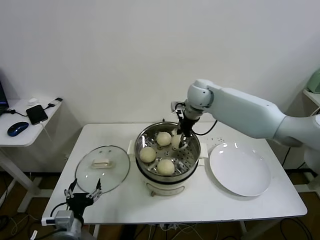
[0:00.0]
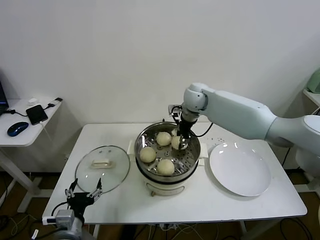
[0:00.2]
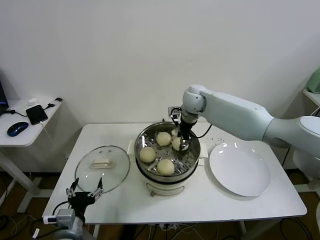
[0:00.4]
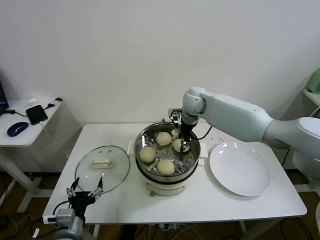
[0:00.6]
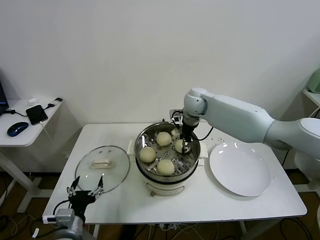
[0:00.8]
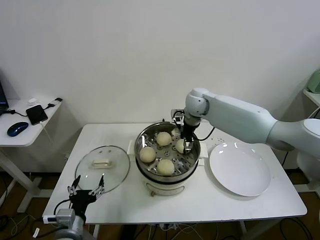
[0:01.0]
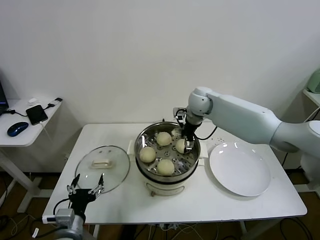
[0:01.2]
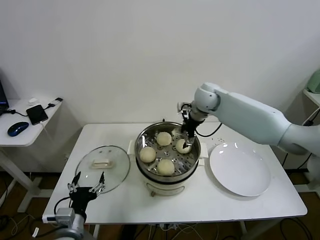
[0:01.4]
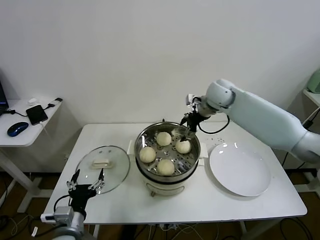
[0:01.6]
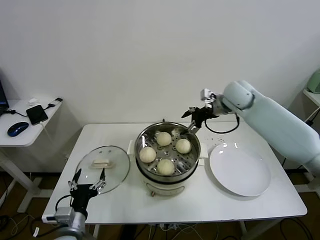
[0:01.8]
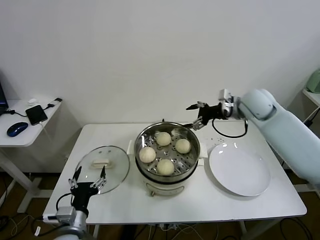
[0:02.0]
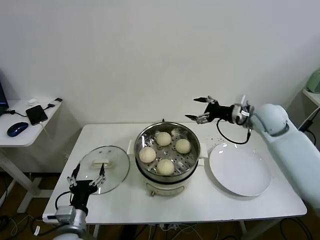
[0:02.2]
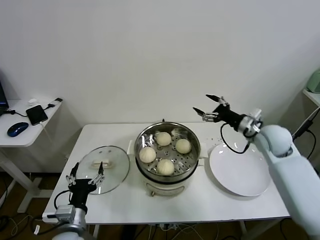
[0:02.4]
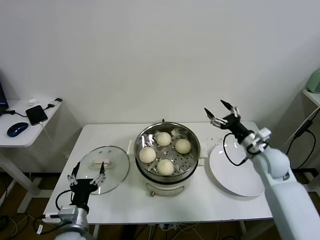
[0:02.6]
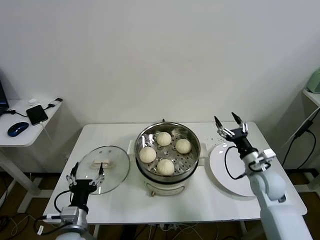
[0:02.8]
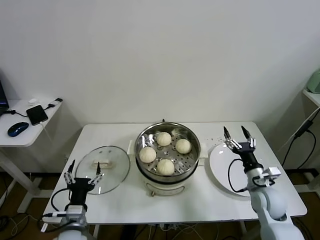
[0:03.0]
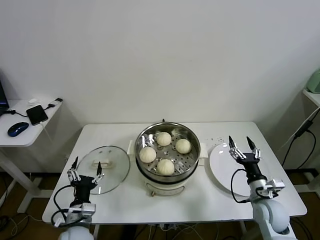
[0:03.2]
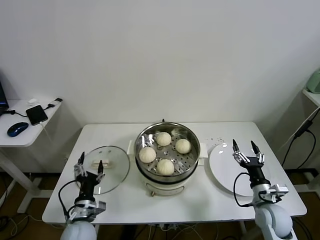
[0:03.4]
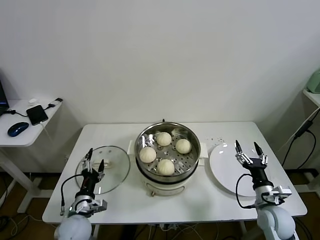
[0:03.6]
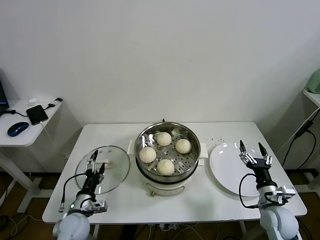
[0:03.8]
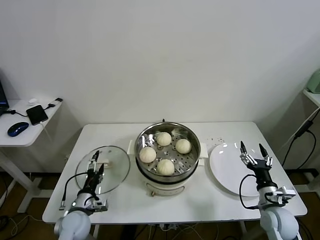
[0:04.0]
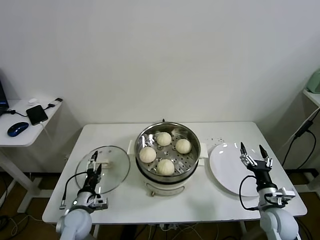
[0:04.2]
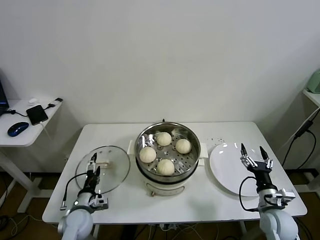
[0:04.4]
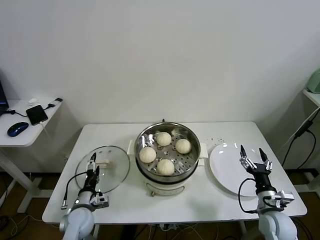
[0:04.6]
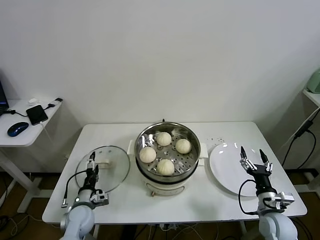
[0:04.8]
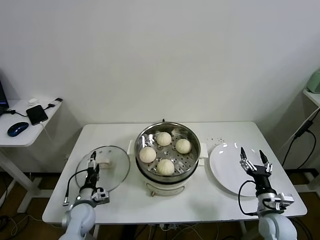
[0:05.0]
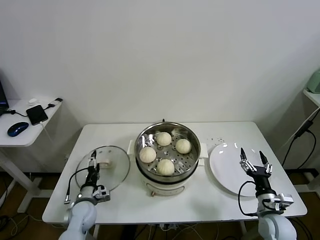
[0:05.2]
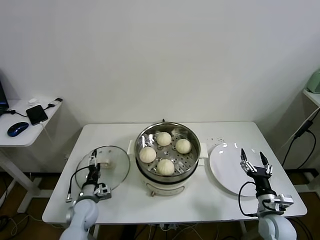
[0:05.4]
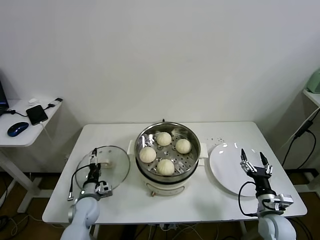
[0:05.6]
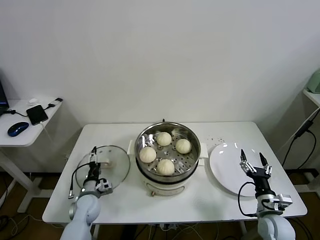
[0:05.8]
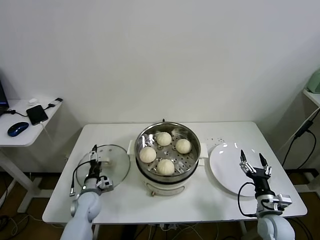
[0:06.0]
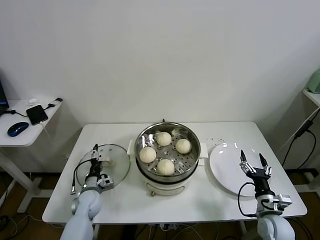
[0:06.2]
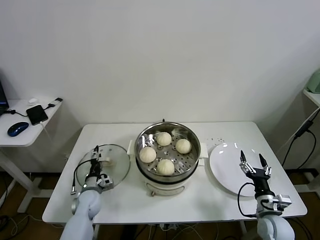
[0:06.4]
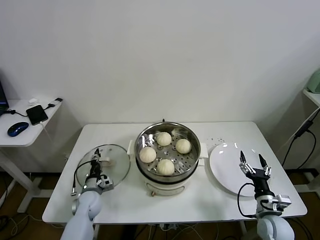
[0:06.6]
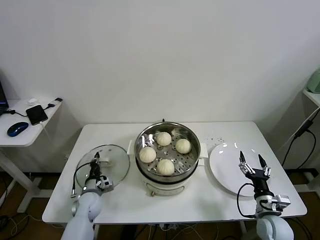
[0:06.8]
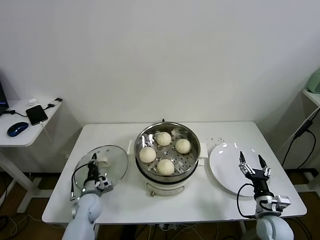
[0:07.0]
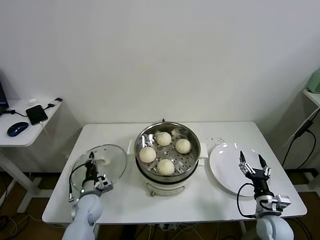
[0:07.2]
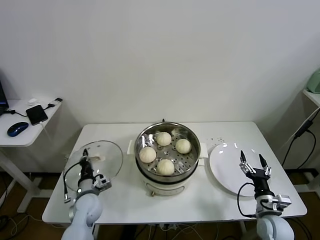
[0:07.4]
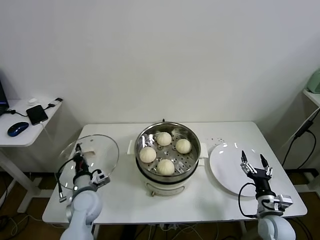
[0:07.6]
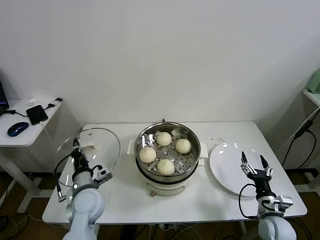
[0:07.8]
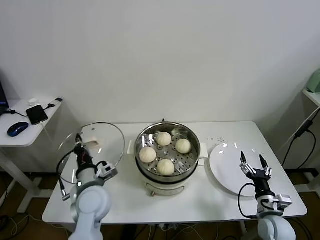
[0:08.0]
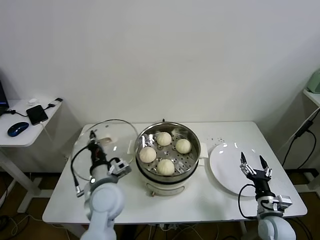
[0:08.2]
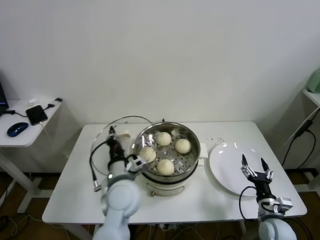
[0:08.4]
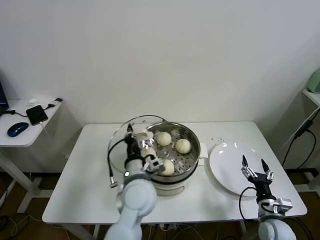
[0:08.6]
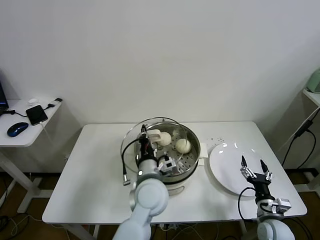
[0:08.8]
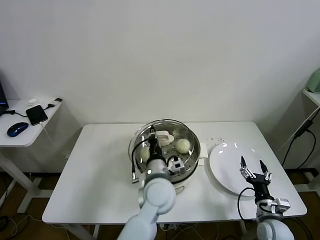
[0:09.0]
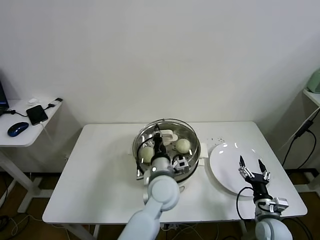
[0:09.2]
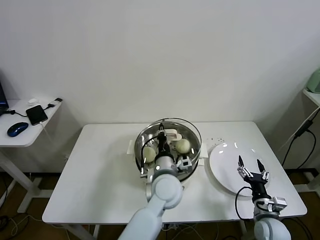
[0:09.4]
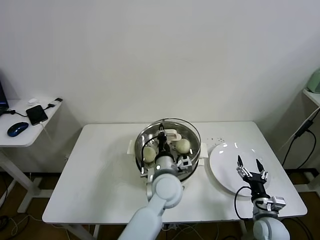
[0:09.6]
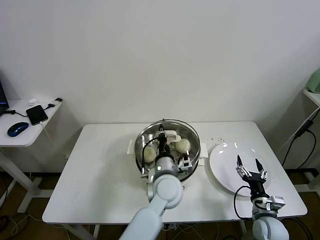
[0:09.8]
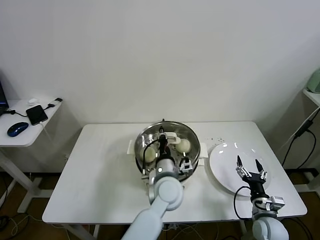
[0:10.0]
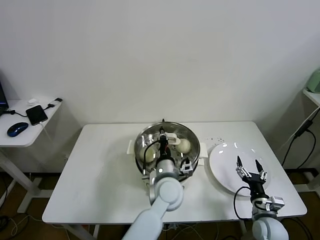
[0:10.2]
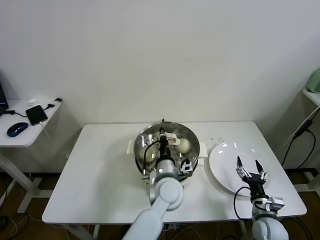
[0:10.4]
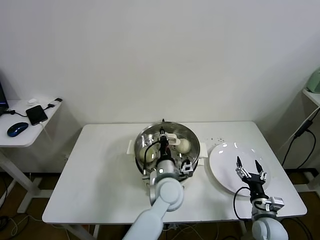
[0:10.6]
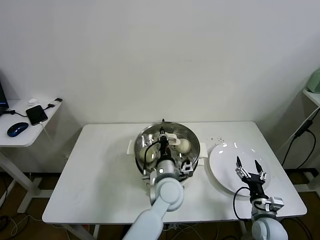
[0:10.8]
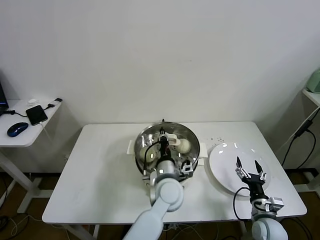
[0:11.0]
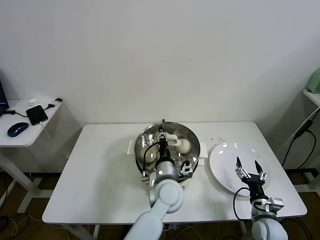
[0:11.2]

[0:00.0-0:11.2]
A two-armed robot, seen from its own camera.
Task of the whole recording: take steamed baozi put them in steamer.
Step, 0:01.4 to 0:07.0: Grasp the pot lid with left gripper.
0:00.0 to 0:01.6: The right gripper goes about 5 cm to the right, and opens.
0:01.6 to 0:03.2: The right gripper heads backward, downward and to the right, covering some 40 cm. The left gripper changes place by roughly 5 cm.
0:03.2 to 0:04.8: The left gripper travels forward and downward by roughly 10 cm.
0:04.8 to 0:06.4: The left gripper is displaced forward by approximately 5 cm.
0:06.4 to 0:08.0: The left gripper is displaced upward and to the right by approximately 20 cm, and closes its fingers.
0:08.0 to 0:09.6: The left gripper is displaced to the right by about 20 cm.
0:09.6 to 0:11.2: The grippers move only a little.

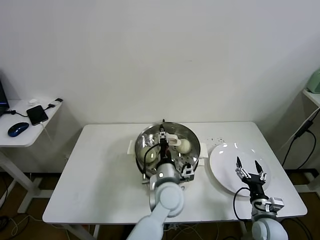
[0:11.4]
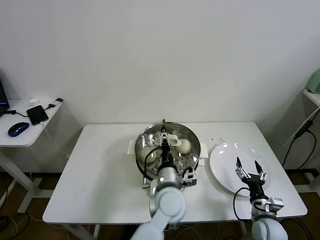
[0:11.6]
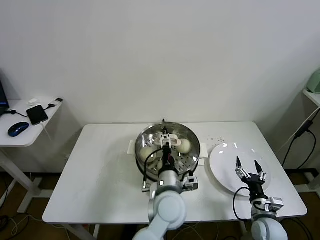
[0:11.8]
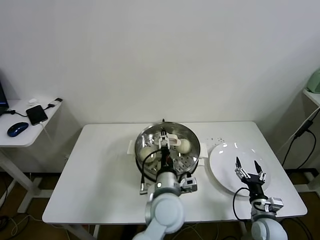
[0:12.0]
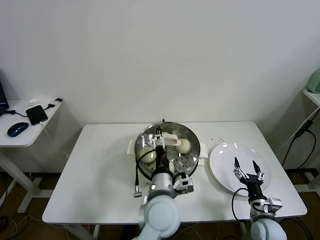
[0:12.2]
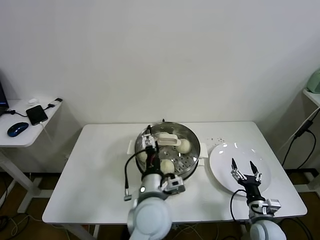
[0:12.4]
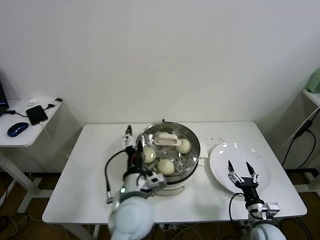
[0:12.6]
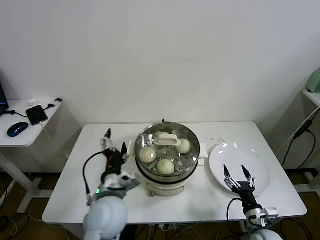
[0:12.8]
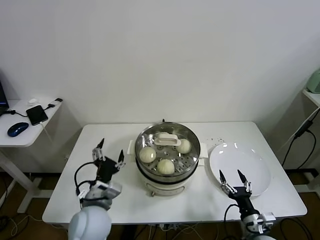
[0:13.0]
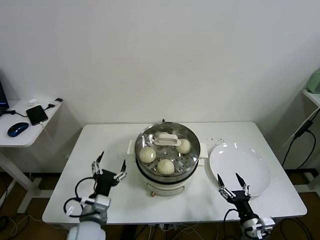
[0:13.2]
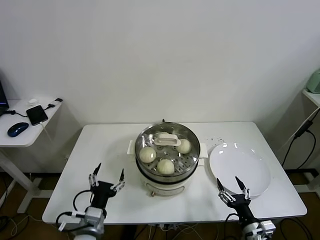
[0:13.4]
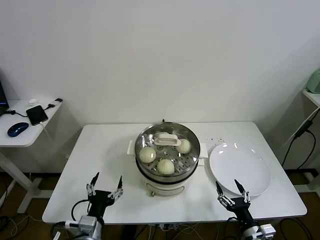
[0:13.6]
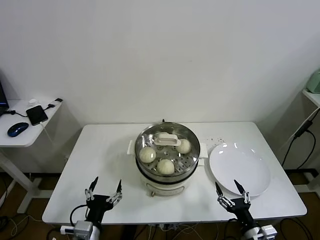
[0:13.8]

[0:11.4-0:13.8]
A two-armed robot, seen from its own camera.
Task of the whole recording: take steamed baozi put them in steamer.
0:11.4 to 0:12.6: The left gripper is displaced to the left, backward and upward by roughly 10 cm, and opens up.
0:12.6 to 0:13.8: The right gripper goes some 10 cm backward, while the left gripper is displaced to the left, downward and backward by about 20 cm.

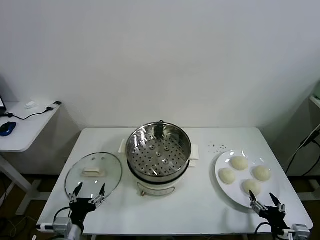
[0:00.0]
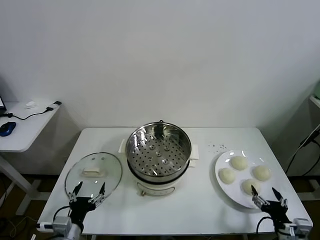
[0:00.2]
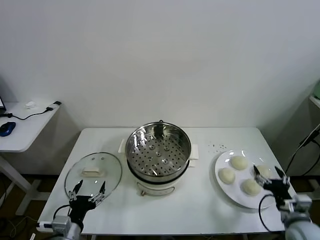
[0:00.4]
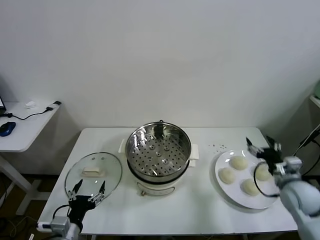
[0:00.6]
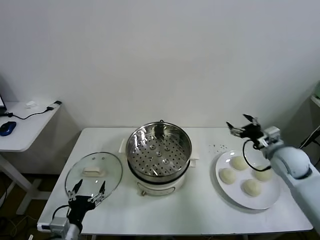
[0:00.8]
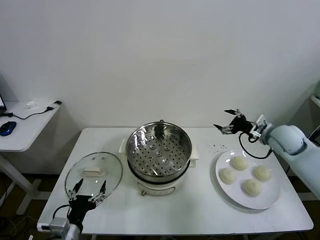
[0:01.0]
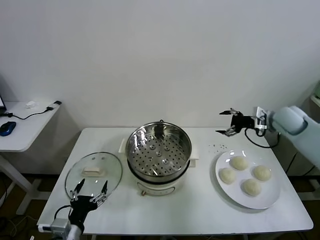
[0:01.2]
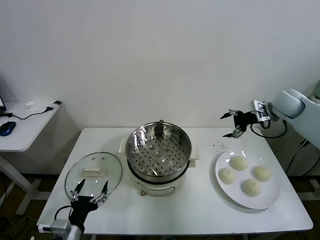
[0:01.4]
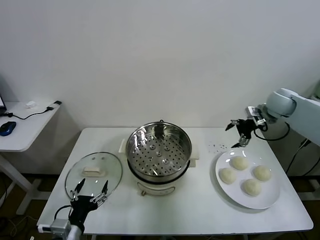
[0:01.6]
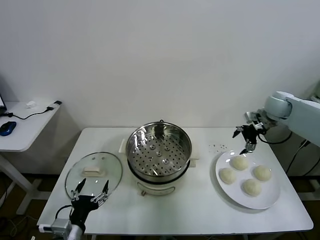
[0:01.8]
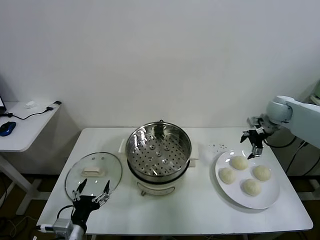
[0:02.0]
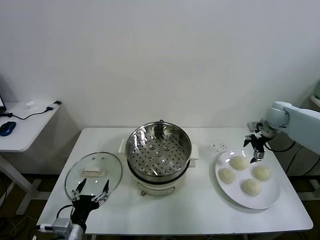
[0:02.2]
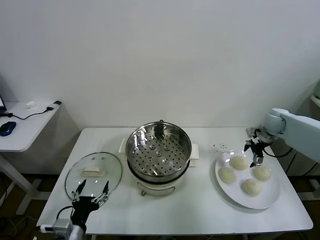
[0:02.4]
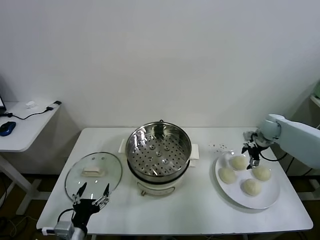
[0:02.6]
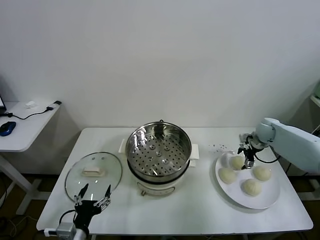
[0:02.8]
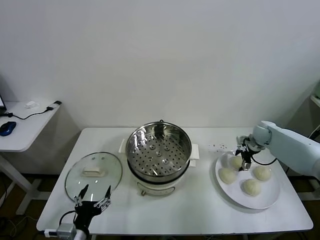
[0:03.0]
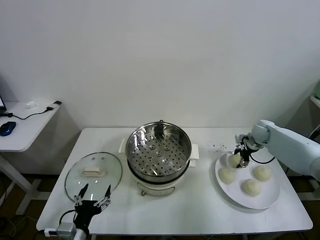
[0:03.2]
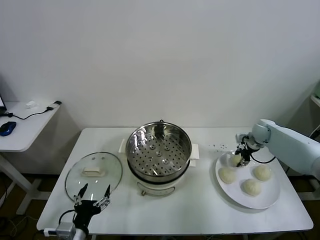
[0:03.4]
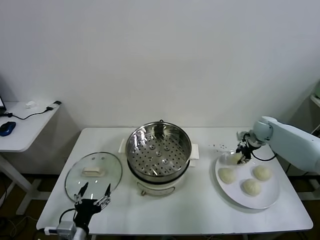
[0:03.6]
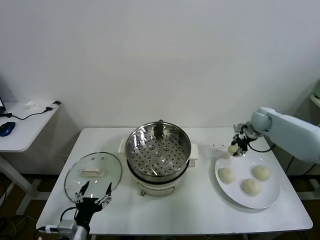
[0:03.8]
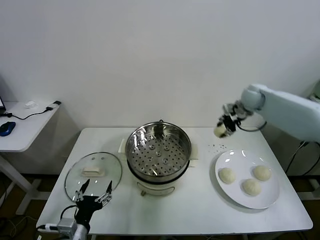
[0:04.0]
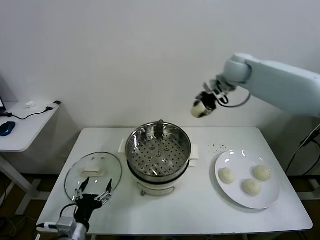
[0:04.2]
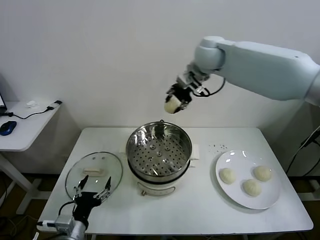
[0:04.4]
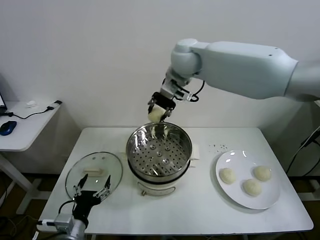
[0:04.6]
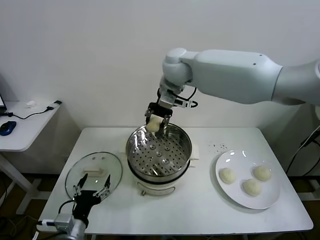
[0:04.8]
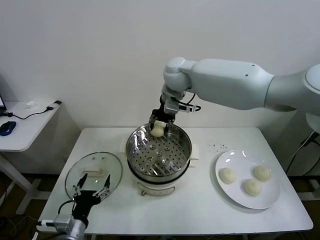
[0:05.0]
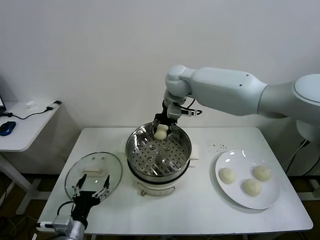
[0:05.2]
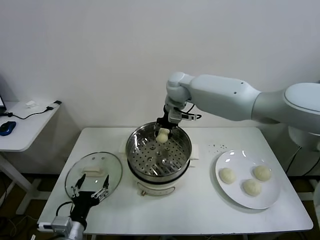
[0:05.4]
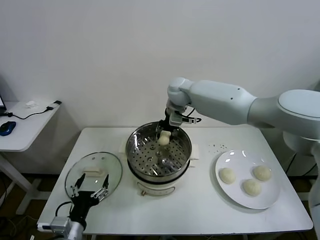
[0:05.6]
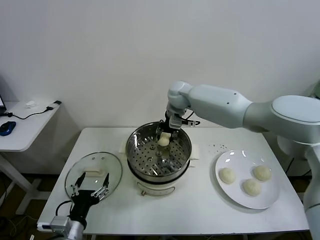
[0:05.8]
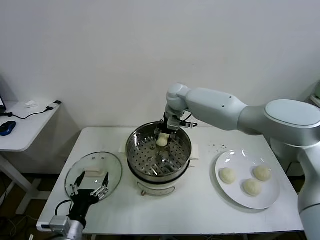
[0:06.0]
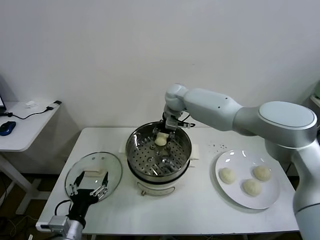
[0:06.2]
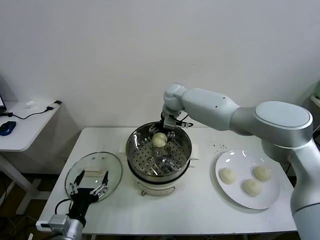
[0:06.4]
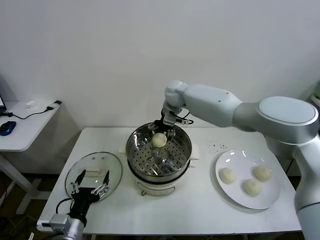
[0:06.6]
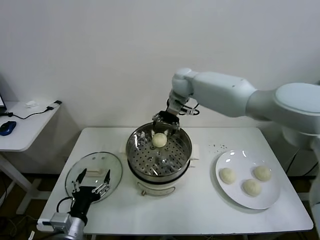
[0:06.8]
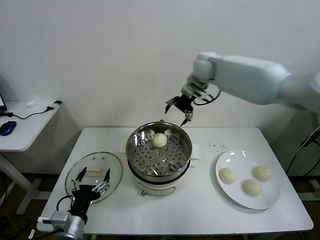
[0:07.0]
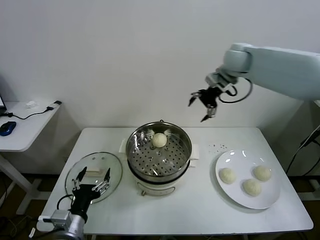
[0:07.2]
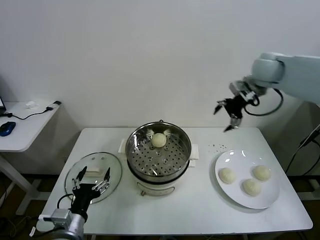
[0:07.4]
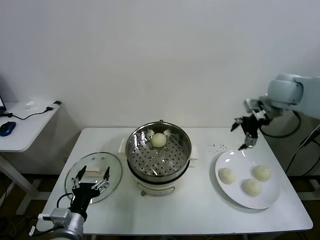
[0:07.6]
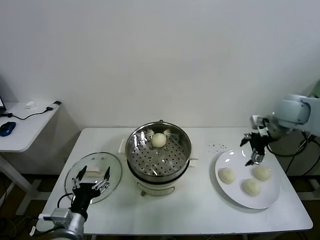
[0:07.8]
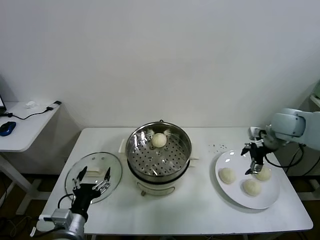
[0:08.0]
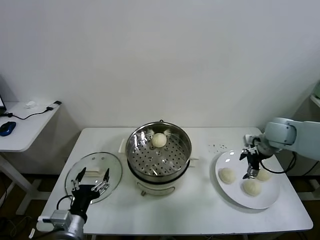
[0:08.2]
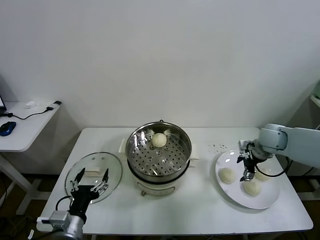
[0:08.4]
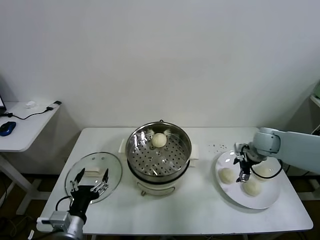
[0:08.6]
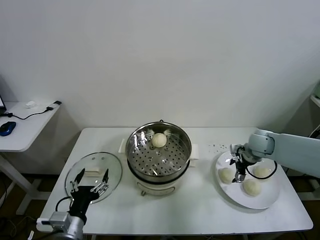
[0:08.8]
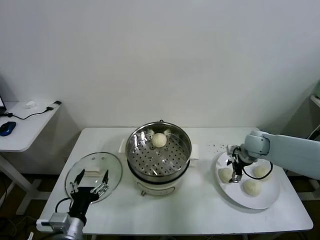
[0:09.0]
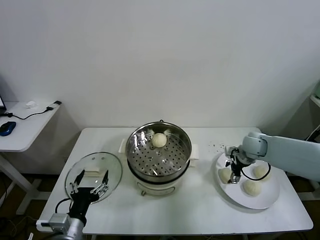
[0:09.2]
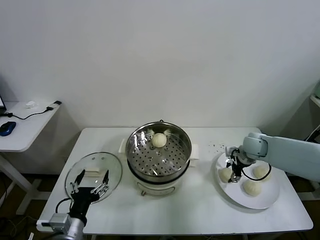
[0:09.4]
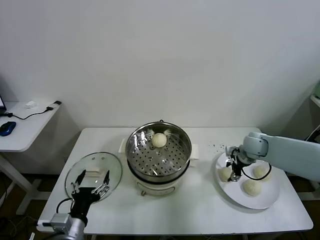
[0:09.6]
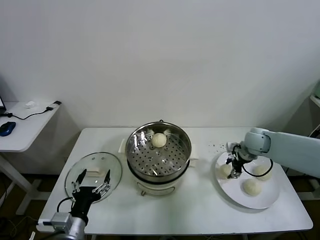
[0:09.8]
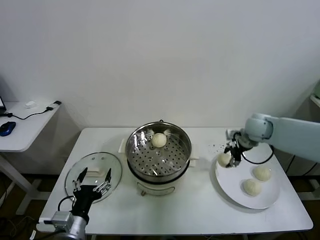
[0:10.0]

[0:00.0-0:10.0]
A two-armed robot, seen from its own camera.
Task of the whole recording: take steamed baozi put them in steamer.
Step, 0:00.0 to 0:03.4: Grasp the baozi in the plate with right gripper.
Step, 0:03.6 to 0:06.4: Place the baozi on the steamer with right gripper.
Step, 0:06.8 to 0:09.6: Grasp the baozi in the plate with right gripper.
0:01.4 to 0:02.8: The right gripper heads downward, covering roughly 15 cm.
0:02.8 to 0:04.2: The right gripper travels upward and to the left by approximately 40 cm, and closes up.
0:04.2 to 0:05.8: The right gripper moves downward and to the left, approximately 20 cm.
0:05.8 to 0:07.2: The right gripper travels to the right and upward by roughly 25 cm, and opens up.
0:07.2 to 0:08.6: The right gripper travels downward by some 25 cm.
0:08.6 to 0:10.0: The right gripper is displaced upward by approximately 10 cm, and closes up.
